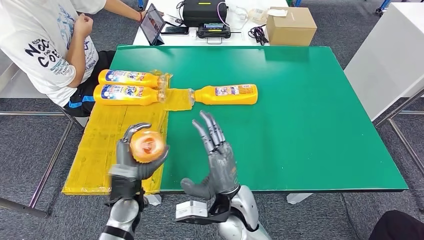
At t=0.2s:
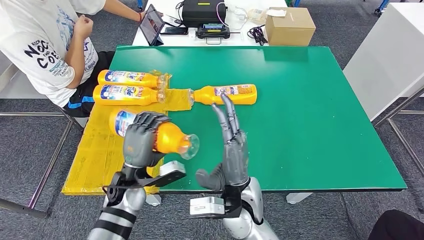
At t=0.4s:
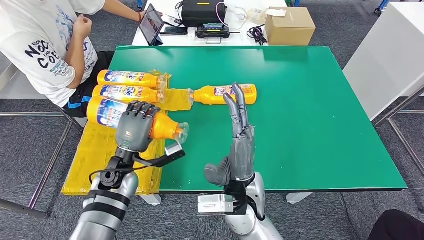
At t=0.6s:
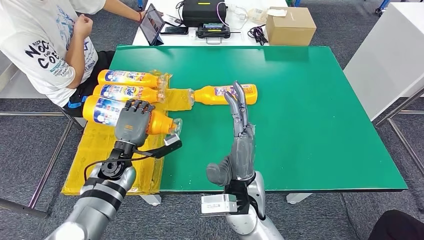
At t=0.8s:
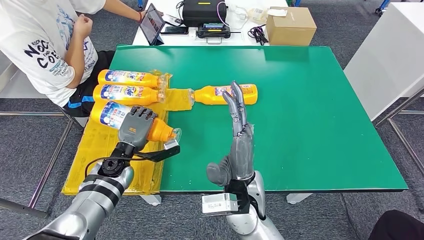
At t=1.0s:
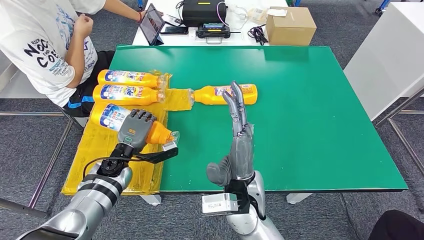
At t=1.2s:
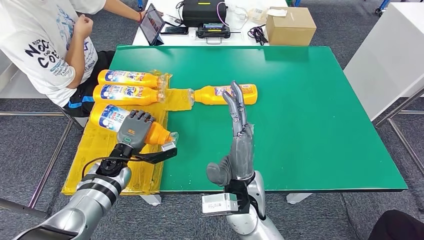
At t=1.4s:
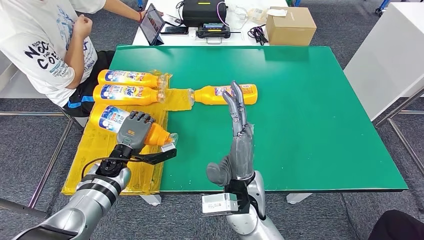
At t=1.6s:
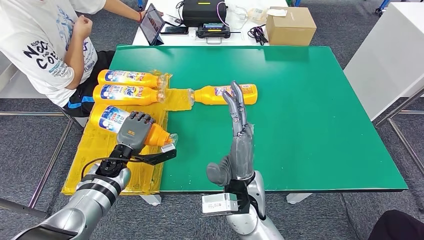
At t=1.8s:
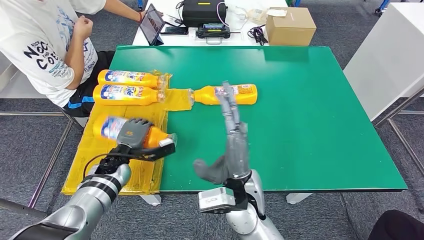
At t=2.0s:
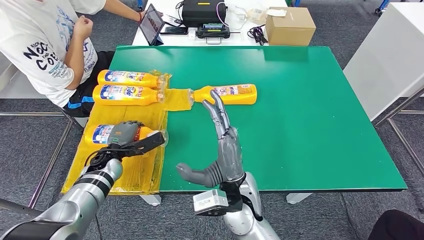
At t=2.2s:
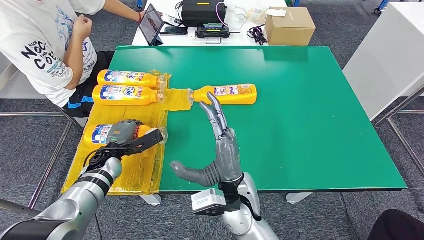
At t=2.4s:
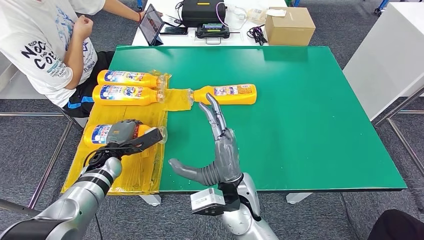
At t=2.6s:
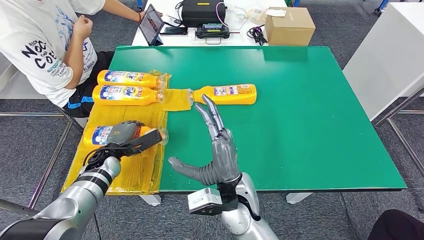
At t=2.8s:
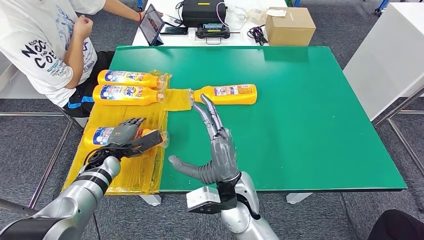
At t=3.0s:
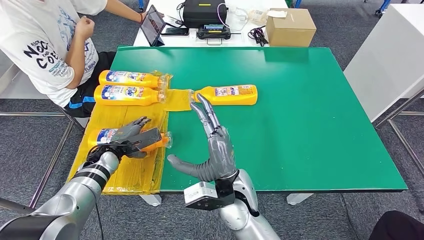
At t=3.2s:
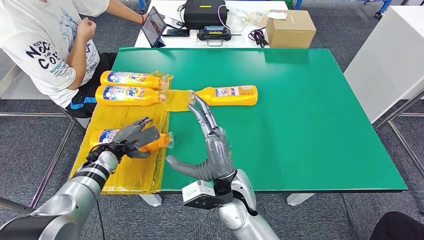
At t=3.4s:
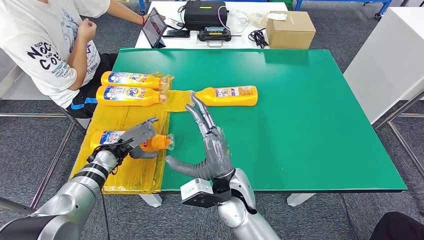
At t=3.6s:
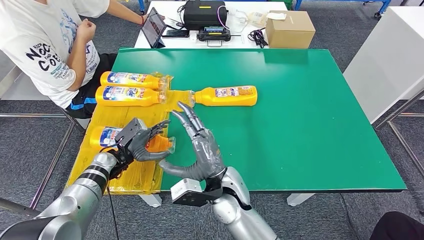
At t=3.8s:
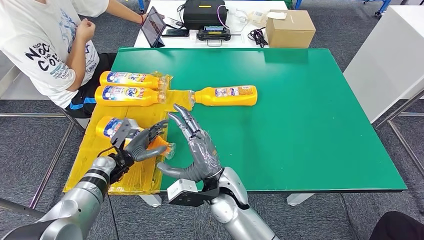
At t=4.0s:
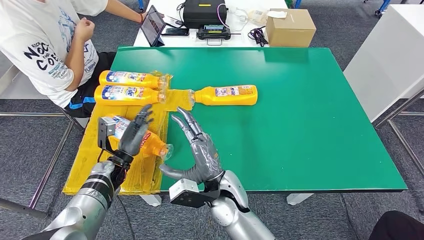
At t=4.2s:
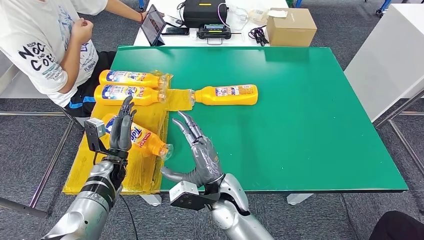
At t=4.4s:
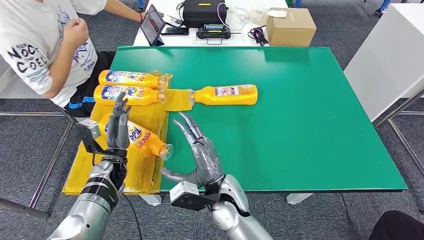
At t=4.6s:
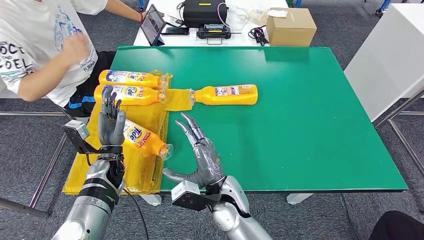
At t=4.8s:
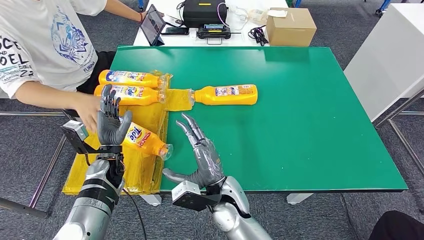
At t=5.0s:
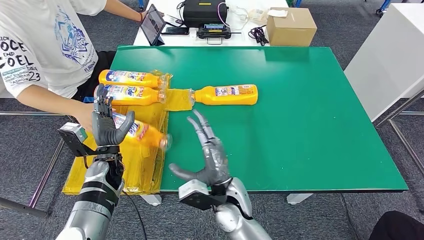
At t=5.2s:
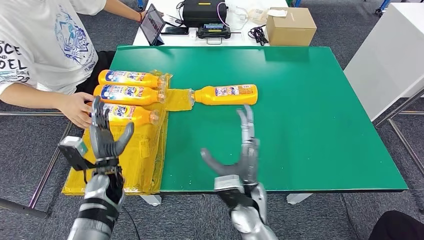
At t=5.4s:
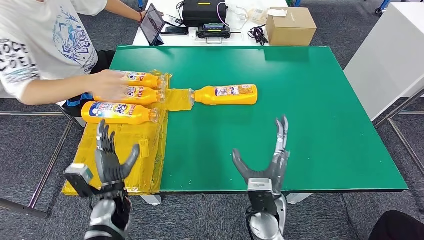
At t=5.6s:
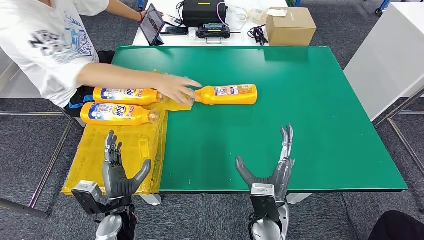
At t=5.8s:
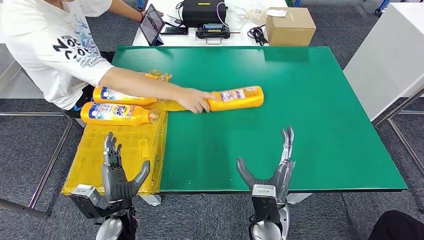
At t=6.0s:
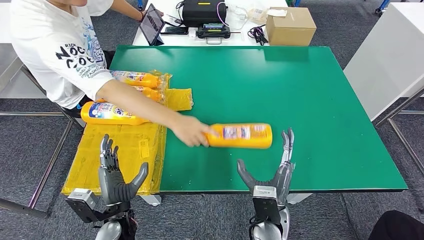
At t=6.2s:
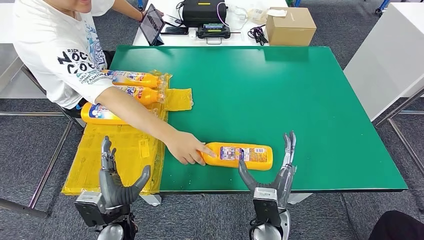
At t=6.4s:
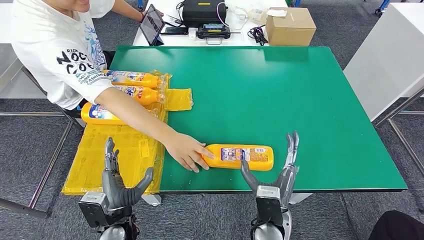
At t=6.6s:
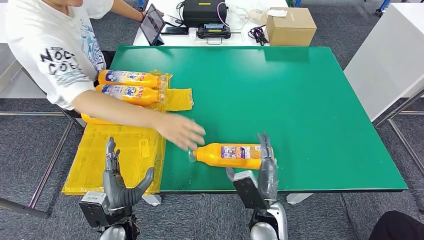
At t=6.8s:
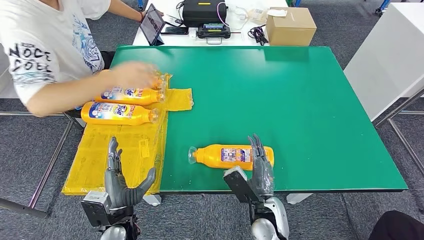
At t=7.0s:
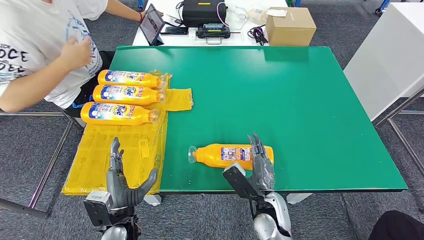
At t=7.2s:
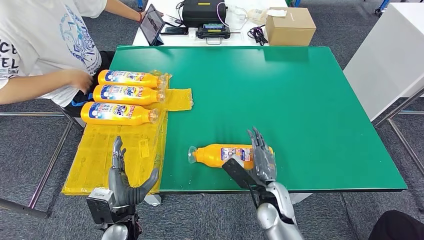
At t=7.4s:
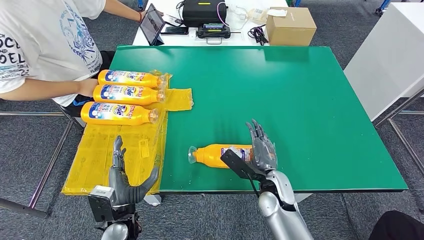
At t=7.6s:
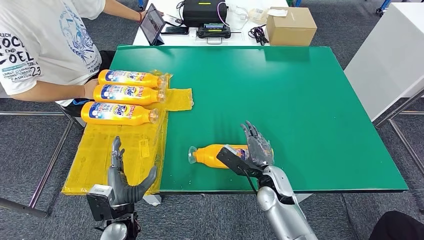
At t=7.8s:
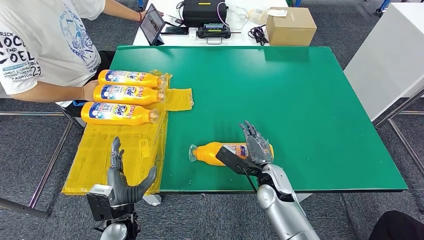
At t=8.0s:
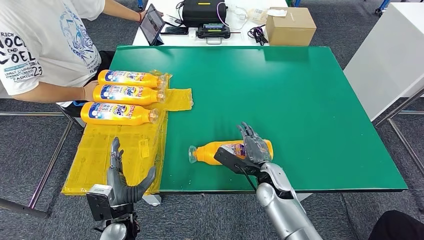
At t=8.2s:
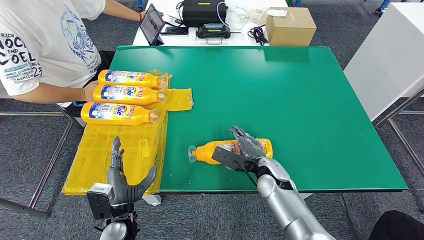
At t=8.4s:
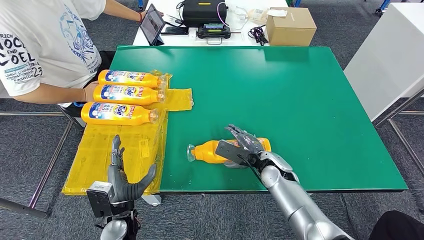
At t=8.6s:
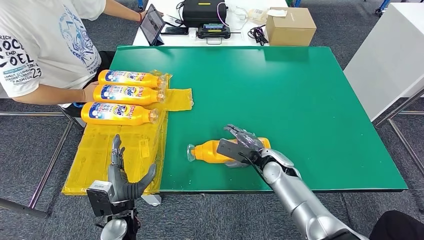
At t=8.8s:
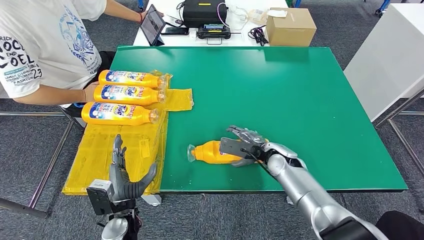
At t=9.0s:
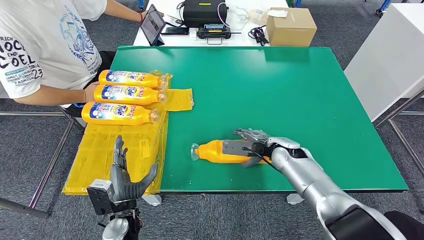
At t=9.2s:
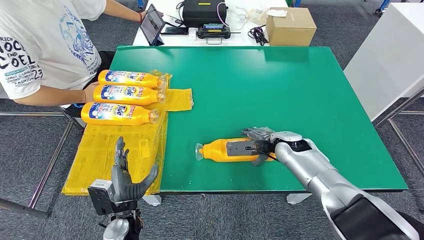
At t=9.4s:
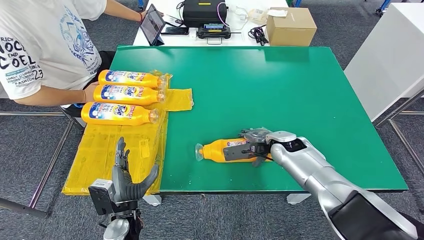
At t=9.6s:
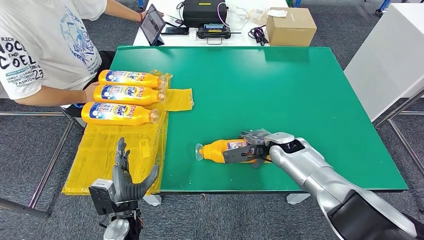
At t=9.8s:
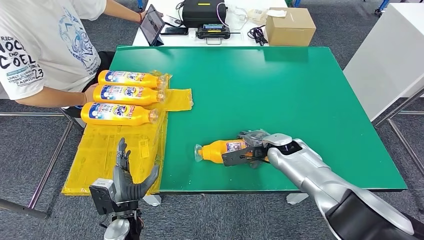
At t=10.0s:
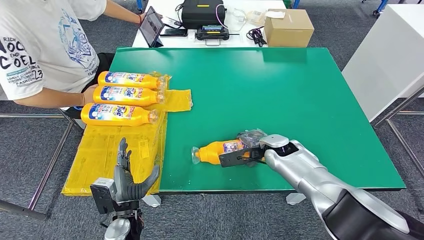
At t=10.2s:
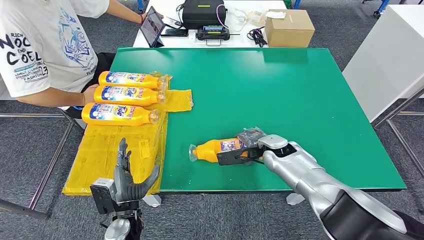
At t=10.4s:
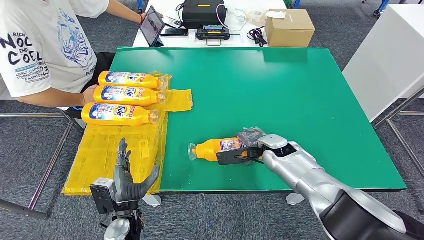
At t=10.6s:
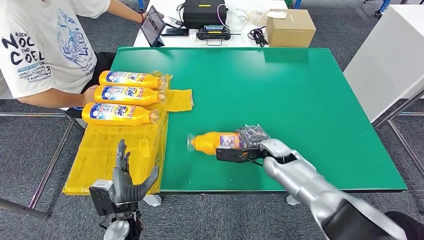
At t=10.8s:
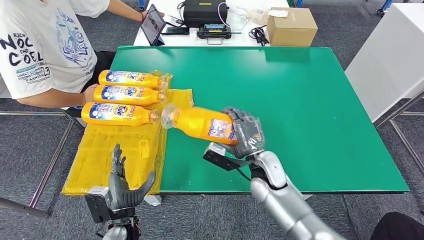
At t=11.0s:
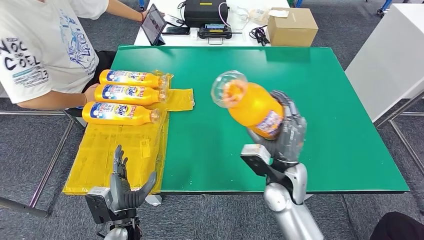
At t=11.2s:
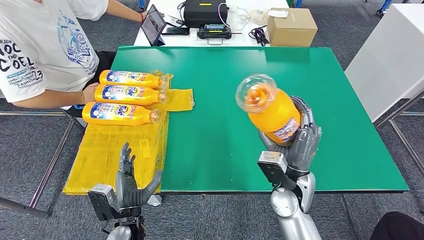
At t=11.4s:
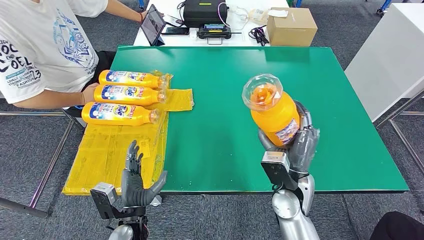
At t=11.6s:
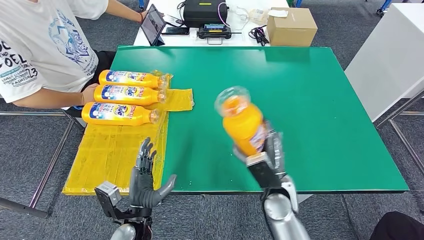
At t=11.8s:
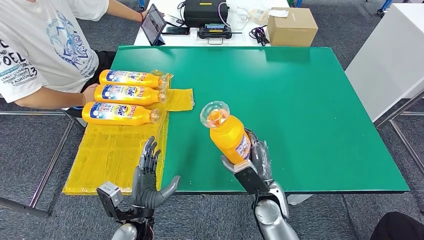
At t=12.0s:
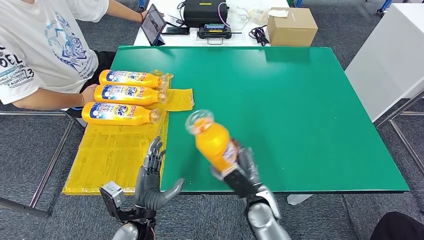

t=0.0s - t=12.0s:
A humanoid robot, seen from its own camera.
t=0.0s - t=1.6s: The right hand shifts approximately 5 cm upward, while the left hand travels forward and to the left by roughly 10 cm.
t=7.6s - t=9.0s: The right hand is displaced forward and to the right by approximately 10 cm.

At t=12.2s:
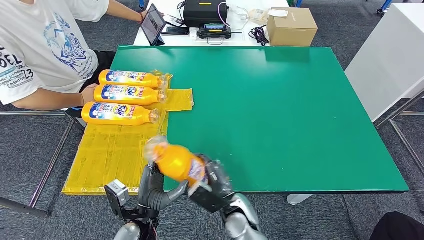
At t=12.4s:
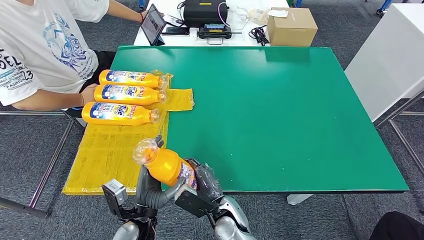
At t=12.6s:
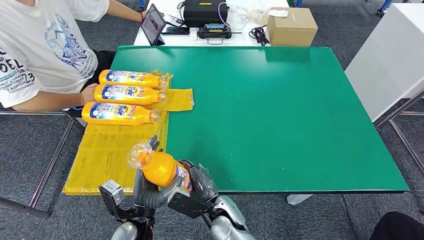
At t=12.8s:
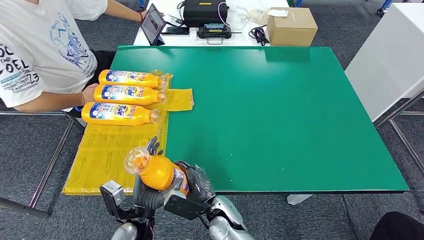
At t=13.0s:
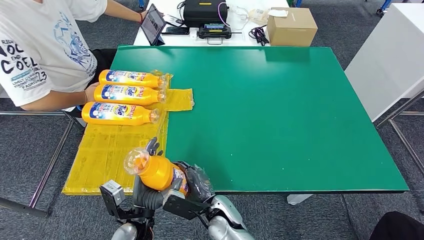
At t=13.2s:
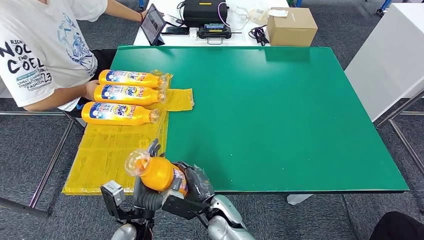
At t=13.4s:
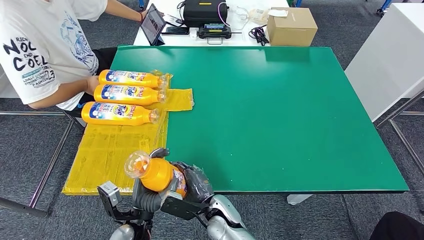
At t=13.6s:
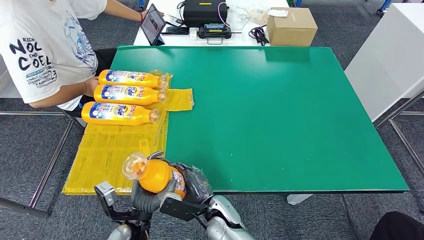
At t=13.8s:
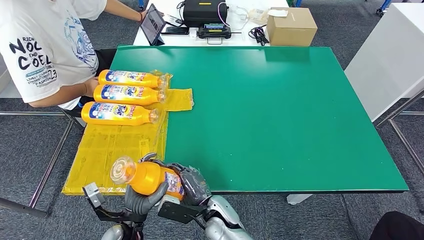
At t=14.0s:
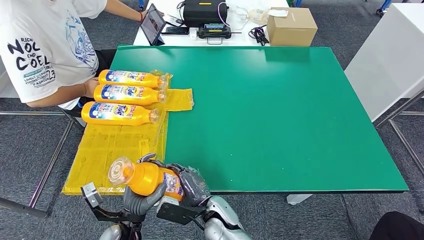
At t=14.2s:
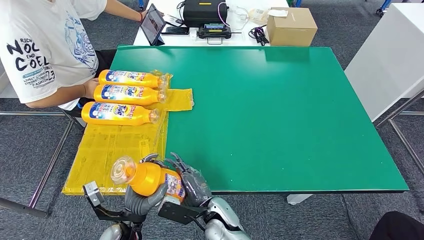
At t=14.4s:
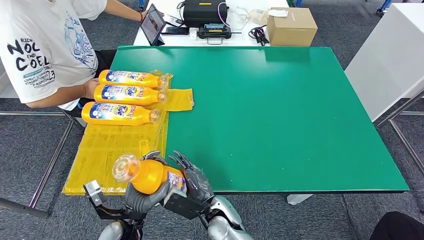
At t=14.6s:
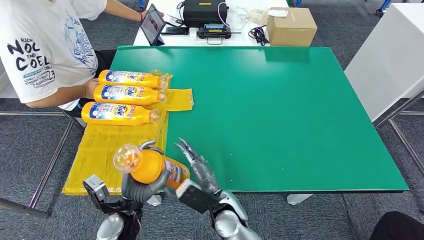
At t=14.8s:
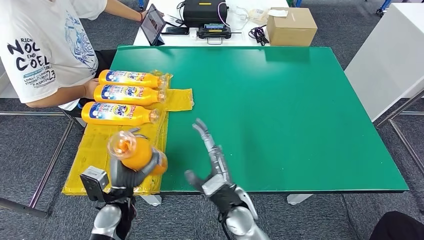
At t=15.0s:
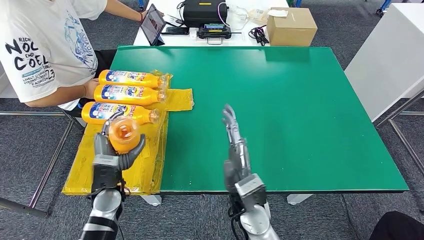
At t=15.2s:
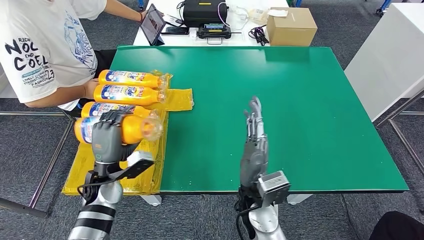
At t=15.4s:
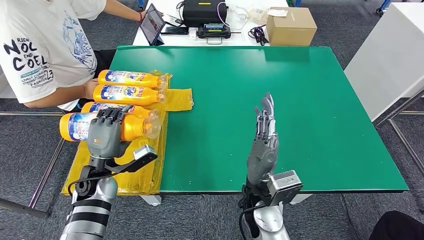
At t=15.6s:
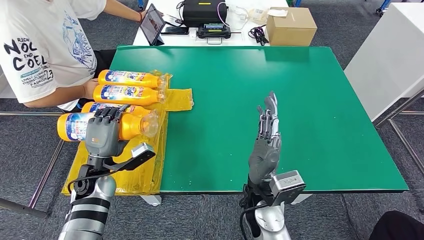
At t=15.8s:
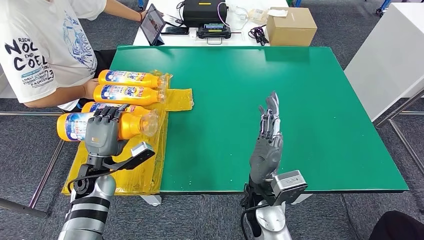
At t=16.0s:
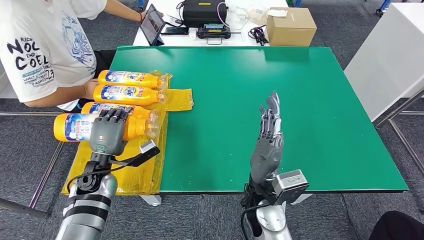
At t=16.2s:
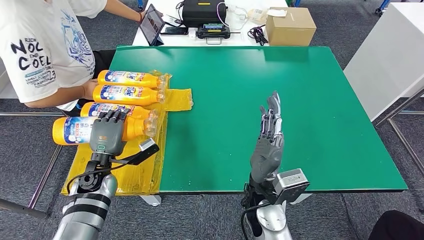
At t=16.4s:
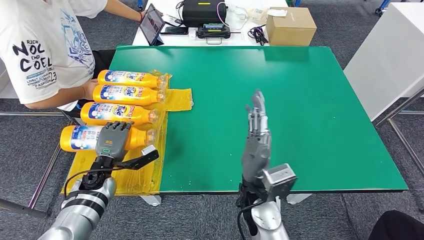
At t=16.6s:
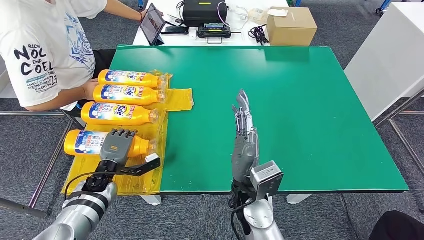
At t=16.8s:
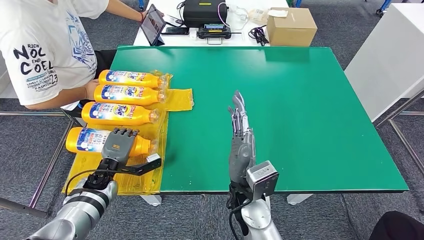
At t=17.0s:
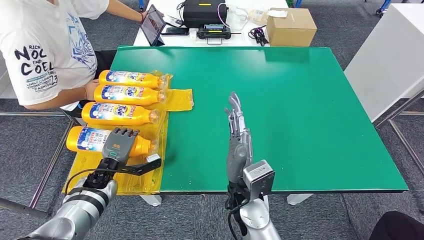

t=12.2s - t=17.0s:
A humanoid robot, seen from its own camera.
Step, t=13.0s - t=17.0s: Flip the fast-moving consumer goods bottle to the front side.
t=12.2s - t=13.8s: The right hand moves to the left, about 5 cm.
t=13.8s - t=15.4s: The right hand travels upward and to the right by about 15 cm. Meanwhile the left hand heads forward, to the left and upward, covering about 15 cm.
